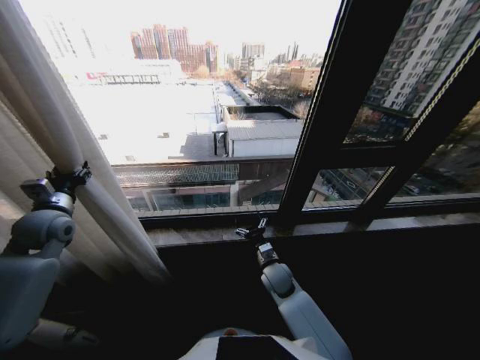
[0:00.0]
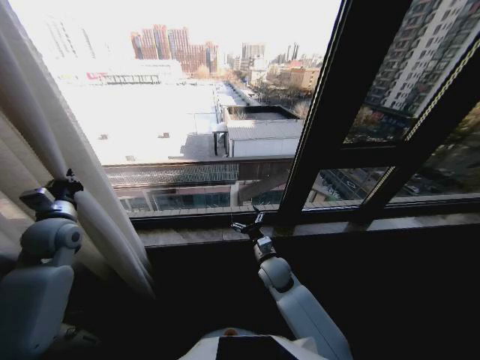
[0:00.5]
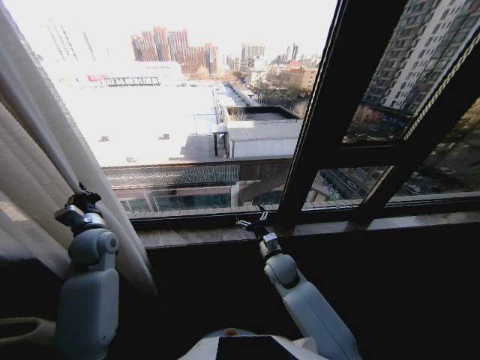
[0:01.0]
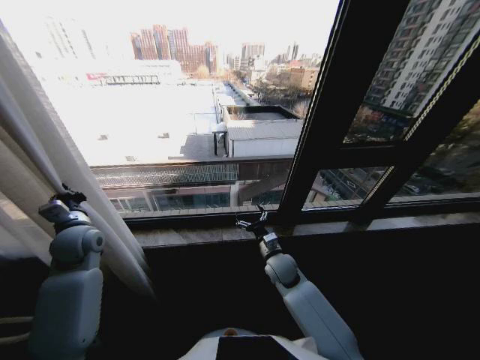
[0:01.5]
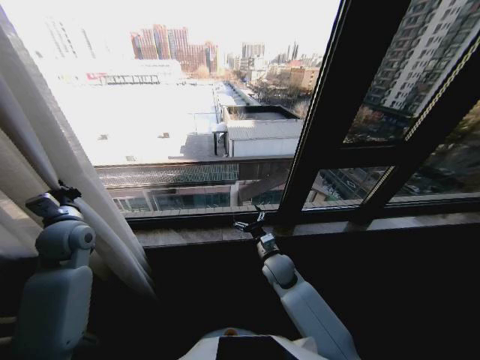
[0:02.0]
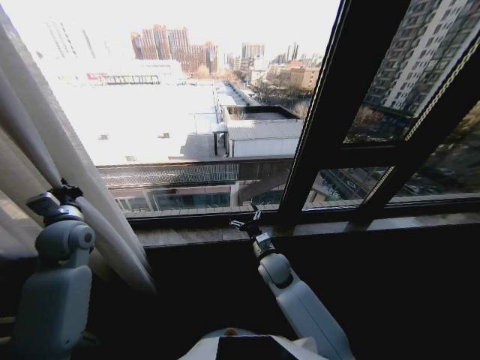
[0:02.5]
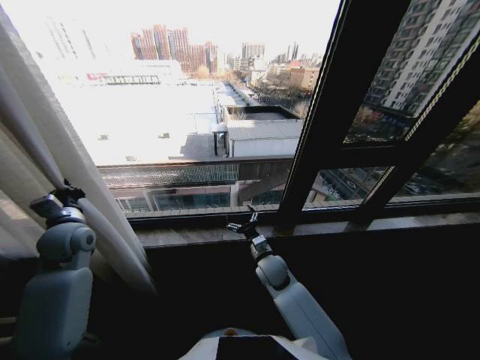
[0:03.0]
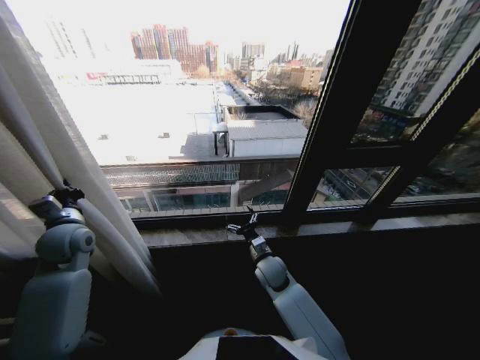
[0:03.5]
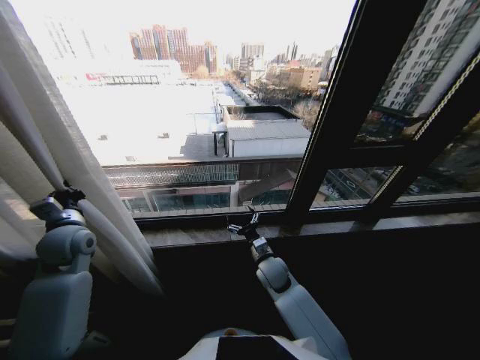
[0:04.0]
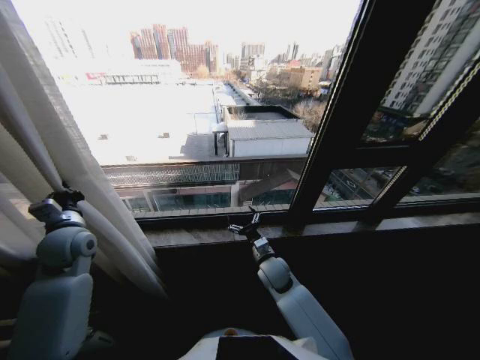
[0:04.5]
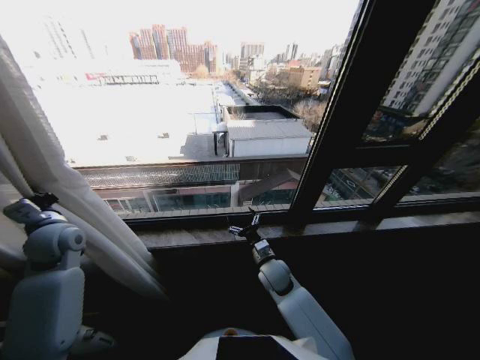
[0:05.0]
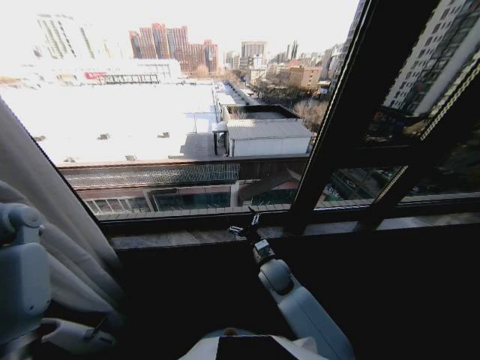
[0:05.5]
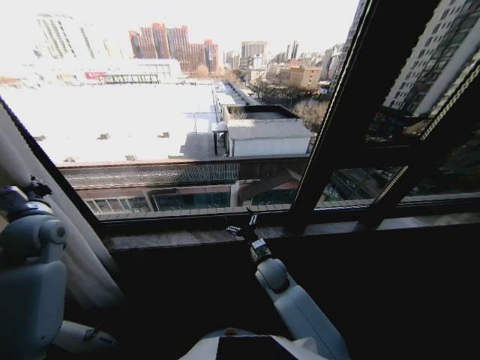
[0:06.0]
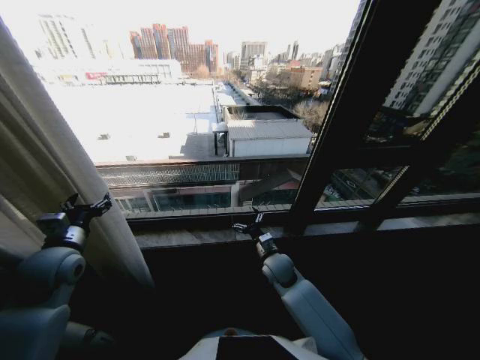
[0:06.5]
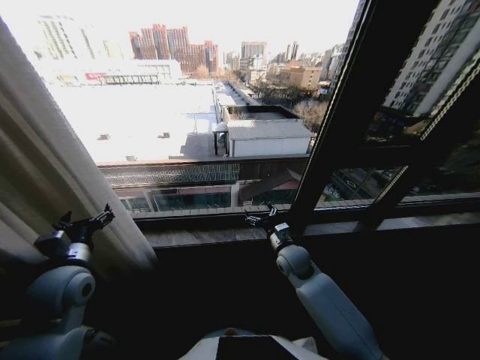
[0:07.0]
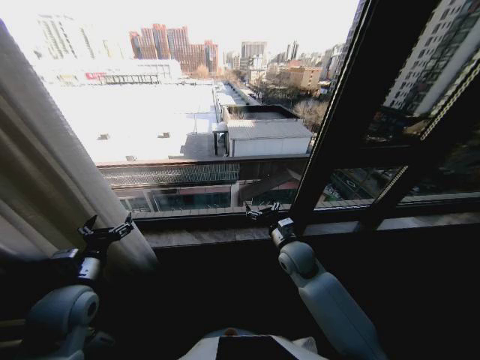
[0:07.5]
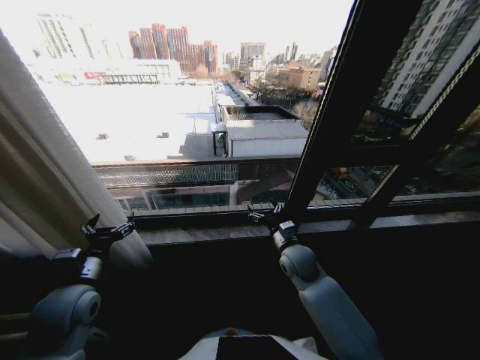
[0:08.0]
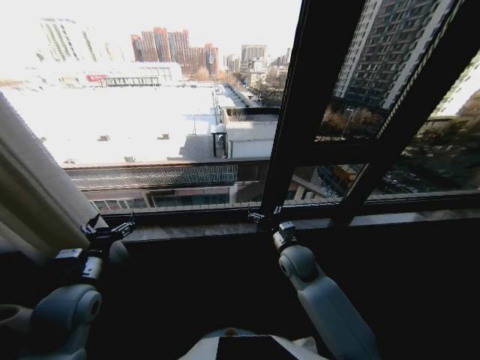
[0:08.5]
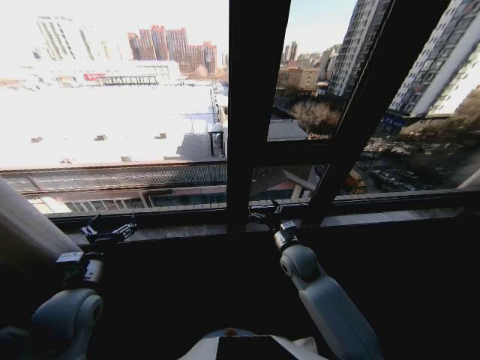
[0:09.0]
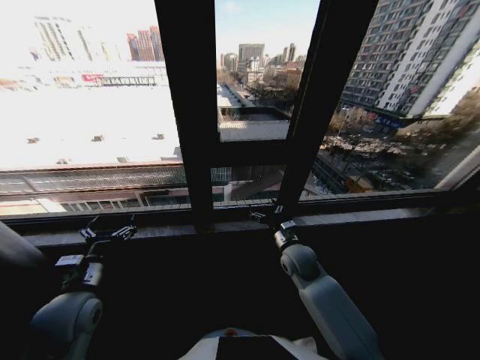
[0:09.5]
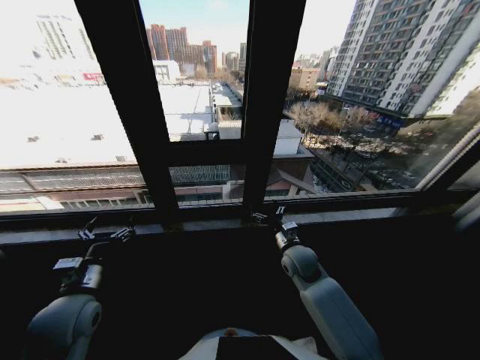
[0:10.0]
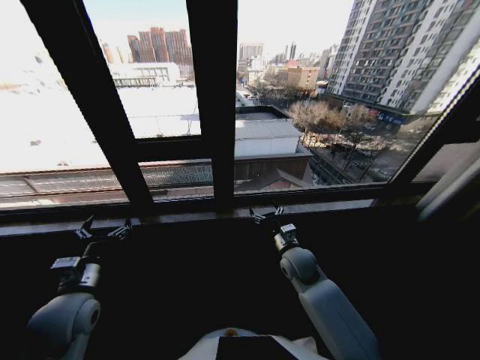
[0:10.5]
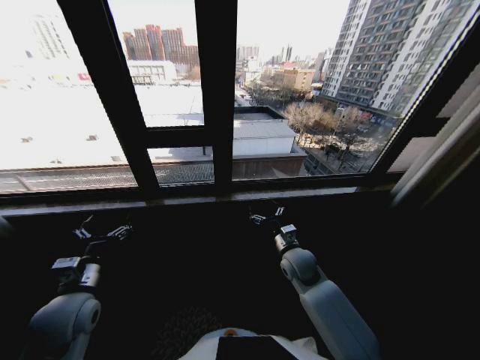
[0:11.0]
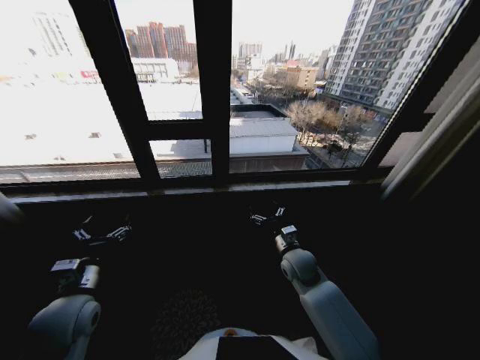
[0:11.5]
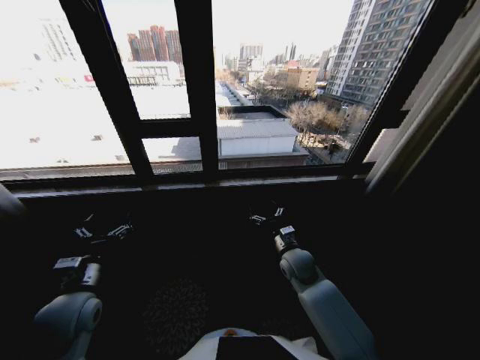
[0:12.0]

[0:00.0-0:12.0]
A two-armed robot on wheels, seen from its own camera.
Task of the whole recording: Open the curtains by pulling them apart, changing their state from closed to fully open.
0:00.0 to 0:02.0: The left gripper closes its fingers.
0:02.0 to 0:04.0: The grippers move only a little.
0:04.0 to 0:06.0: The left gripper moves to the left, roughly 5 cm.
0:06.0 to 0:08.0: The left gripper shifts roughly 20 cm backward, to the right and downward, and opens up, while the right gripper goes approximately 10 cm upward and to the right.

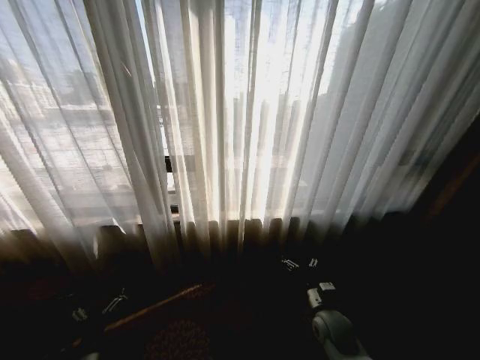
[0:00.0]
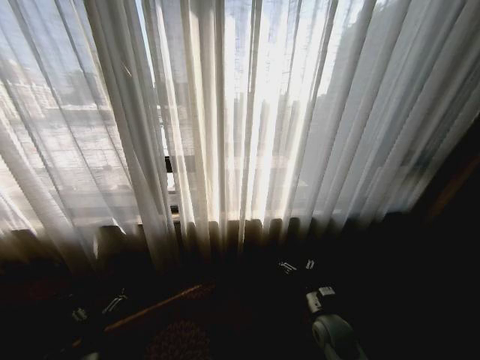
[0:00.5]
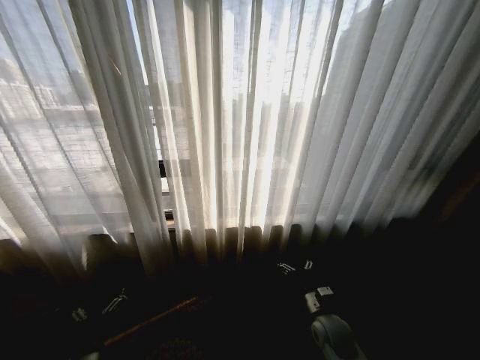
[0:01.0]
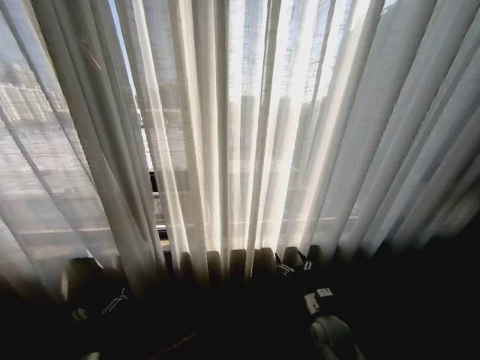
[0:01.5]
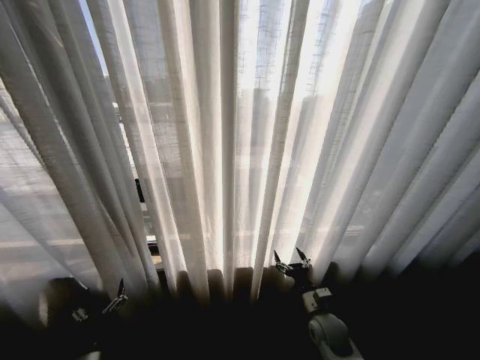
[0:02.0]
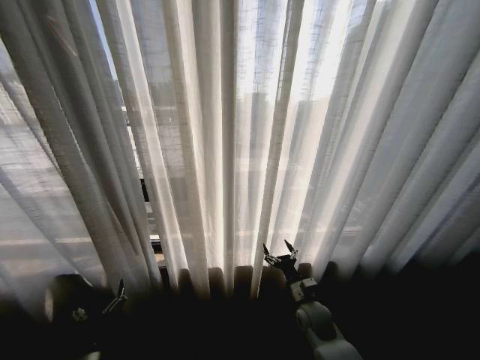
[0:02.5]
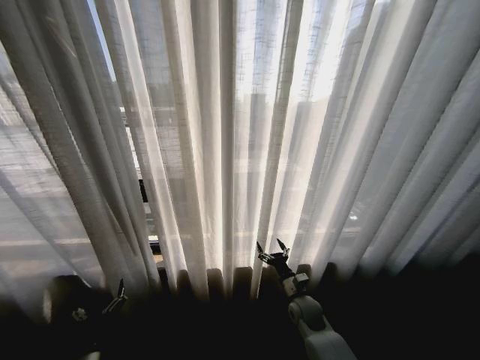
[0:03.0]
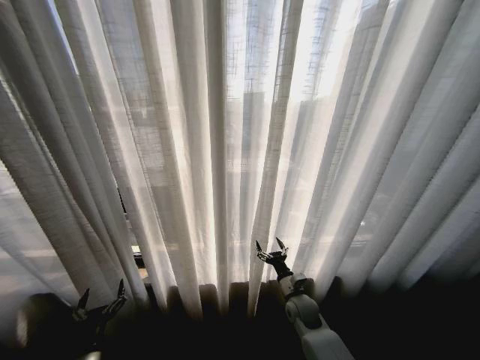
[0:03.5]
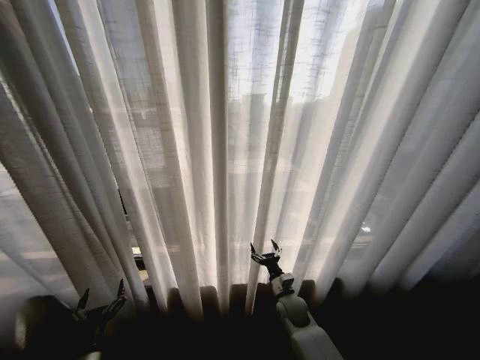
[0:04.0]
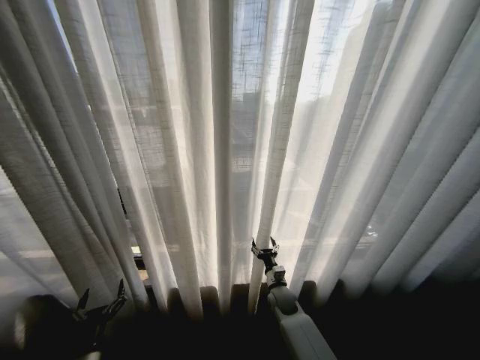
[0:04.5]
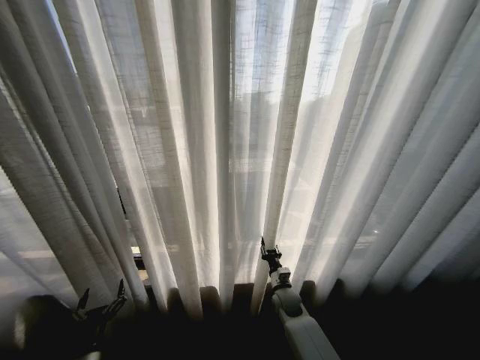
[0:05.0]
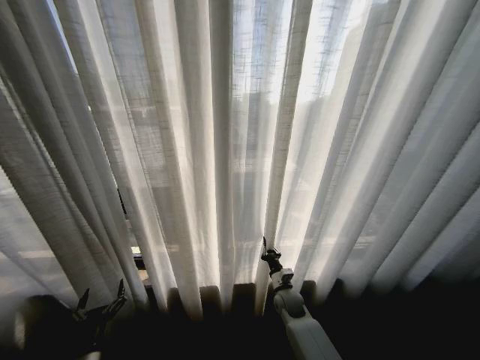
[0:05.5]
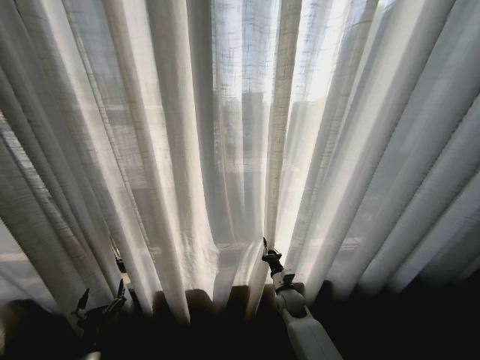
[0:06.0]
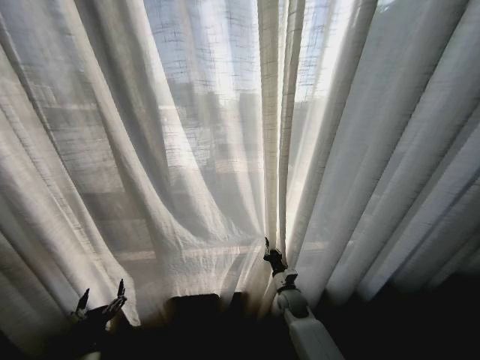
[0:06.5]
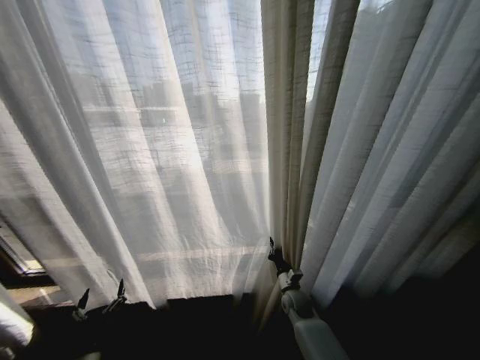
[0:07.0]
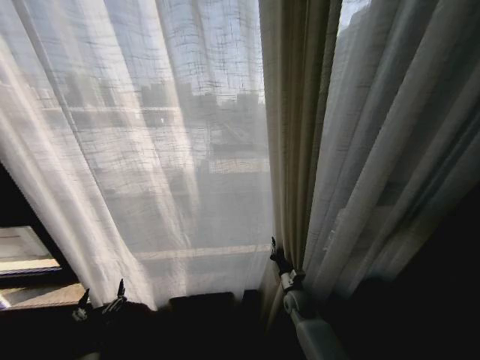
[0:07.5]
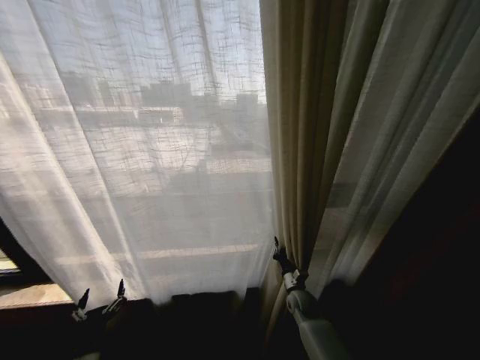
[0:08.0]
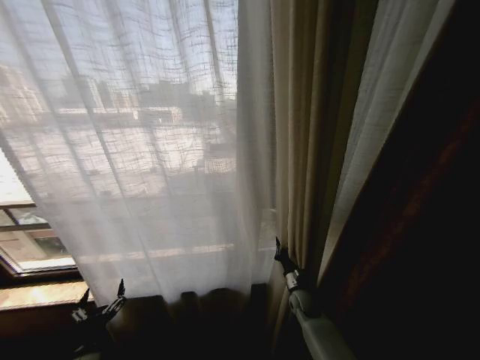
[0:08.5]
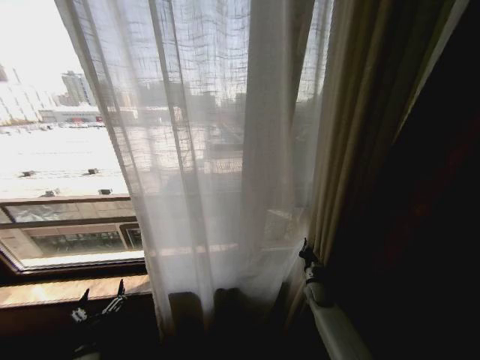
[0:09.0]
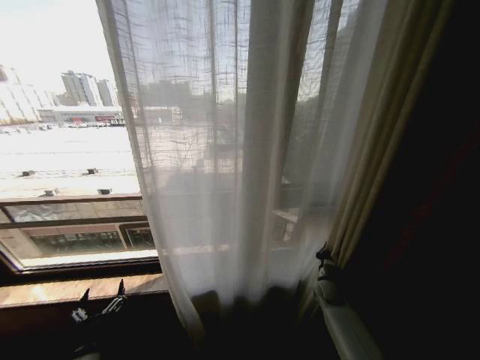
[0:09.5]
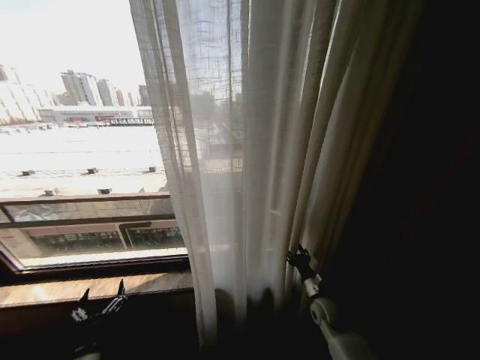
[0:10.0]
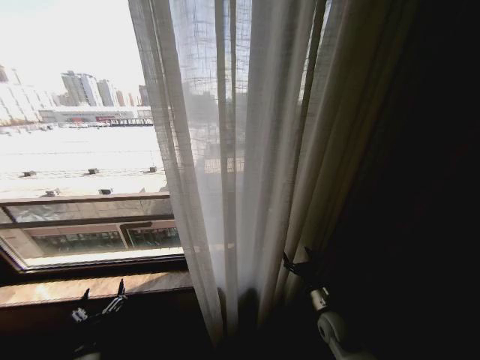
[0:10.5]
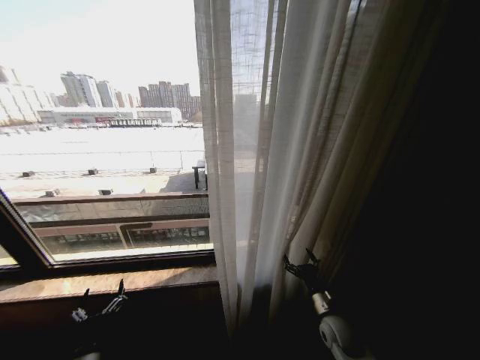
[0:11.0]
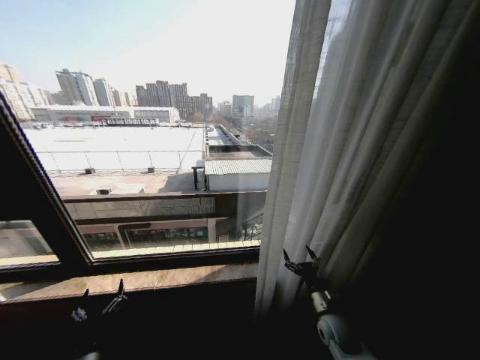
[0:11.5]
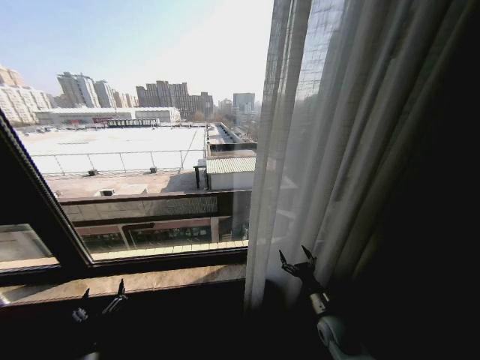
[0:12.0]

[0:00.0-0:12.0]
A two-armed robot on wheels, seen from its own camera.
Task of the whole recording: Open the curtains by pulling them apart, changing their state from closed to fully open.
0:02.0 to 0:04.0: The right gripper moves to the left and forward, approximately 10 cm.
0:04.0 to 0:06.0: The right gripper closes its fingers.
0:08.0 to 0:10.0: The right gripper shifts roughly 5 cm to the right, and opens up.
0:10.0 to 0:12.0: The right gripper opens.

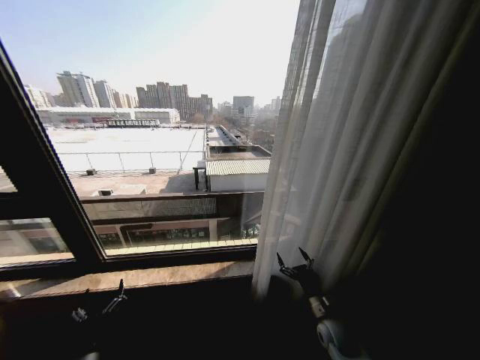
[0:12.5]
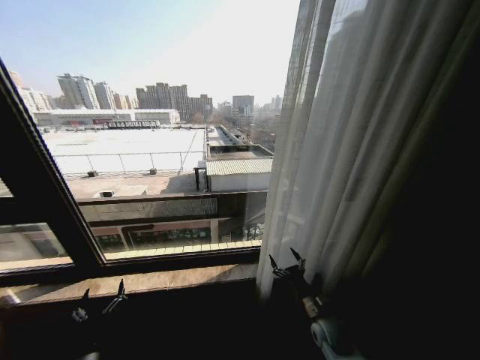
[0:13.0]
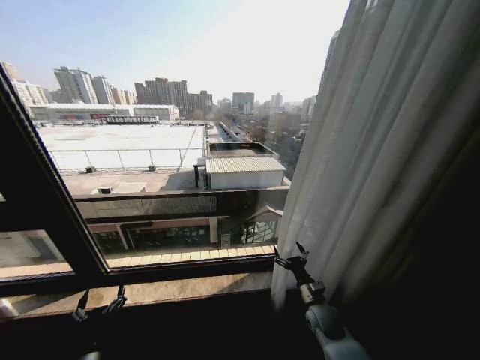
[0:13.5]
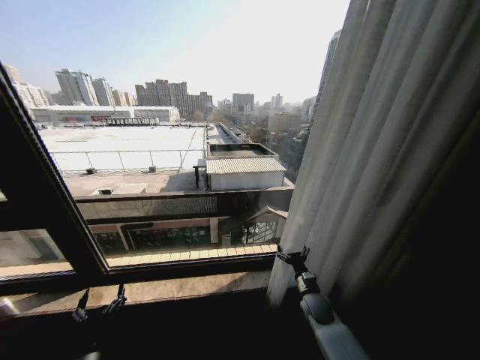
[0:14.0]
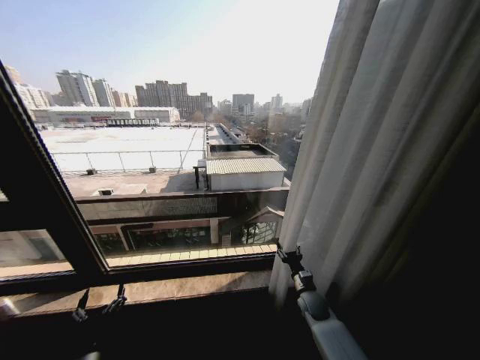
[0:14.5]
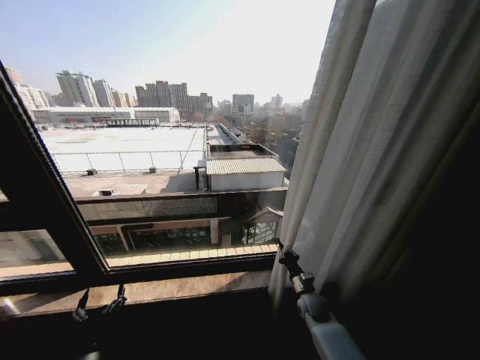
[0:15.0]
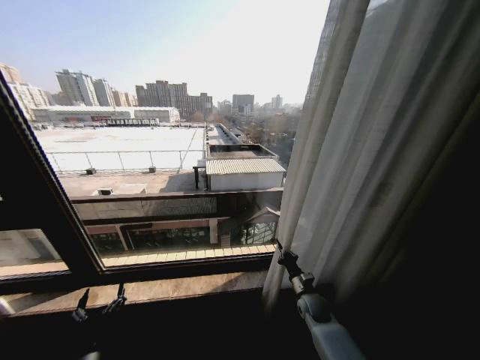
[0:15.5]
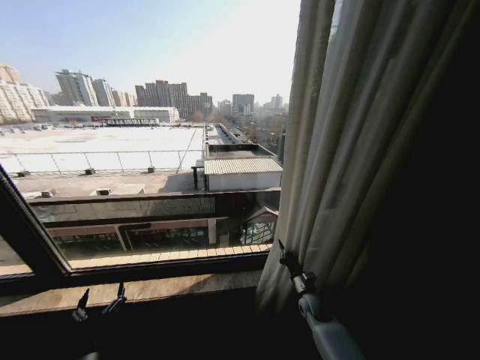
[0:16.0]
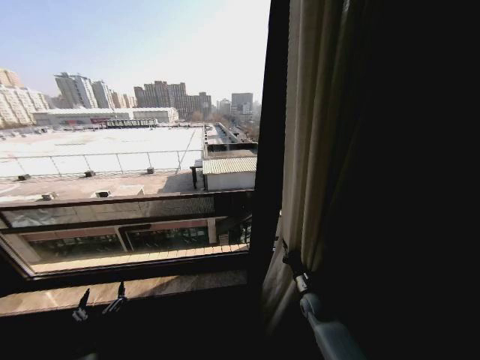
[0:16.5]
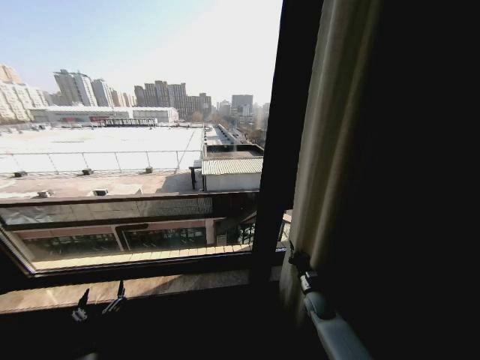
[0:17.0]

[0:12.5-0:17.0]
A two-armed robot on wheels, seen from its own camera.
Task of the whole recording: Open the curtains by pulling them apart, changing their state from closed to fully open.
0:12.5 to 0:14.5: The right gripper moves forward, approximately 10 cm.
0:14.5 to 0:17.0: The right gripper closes.
